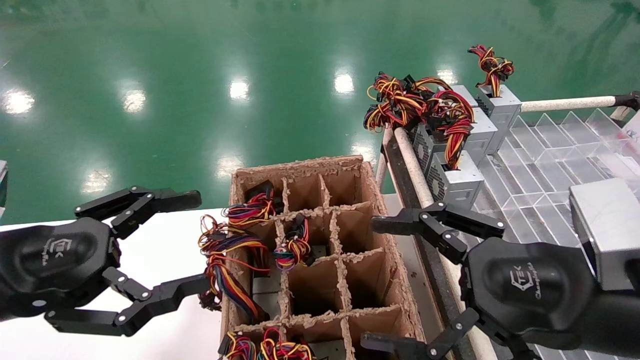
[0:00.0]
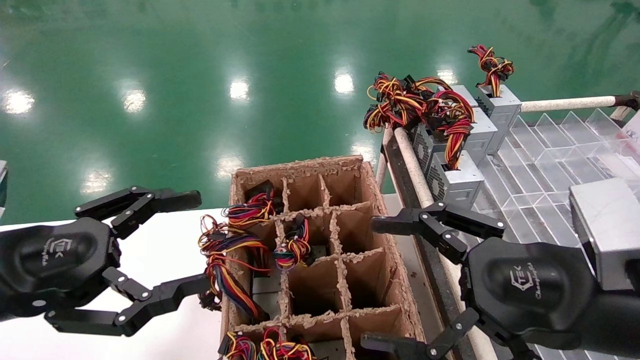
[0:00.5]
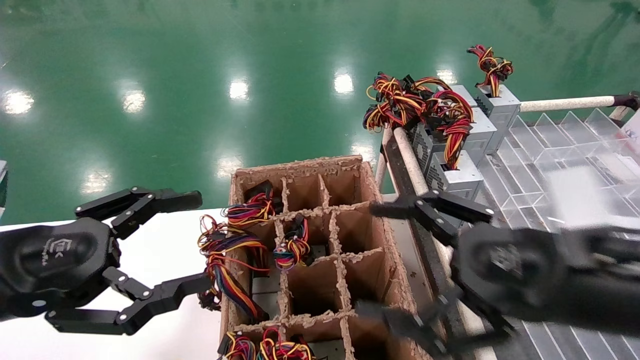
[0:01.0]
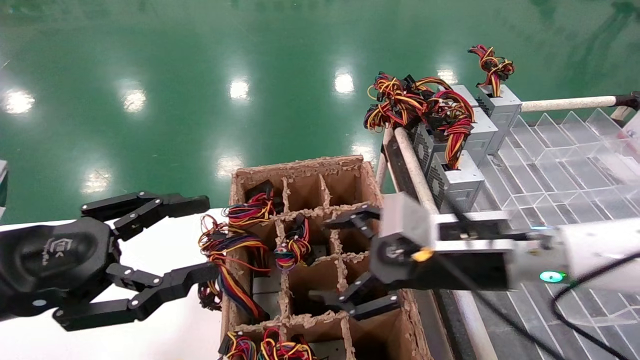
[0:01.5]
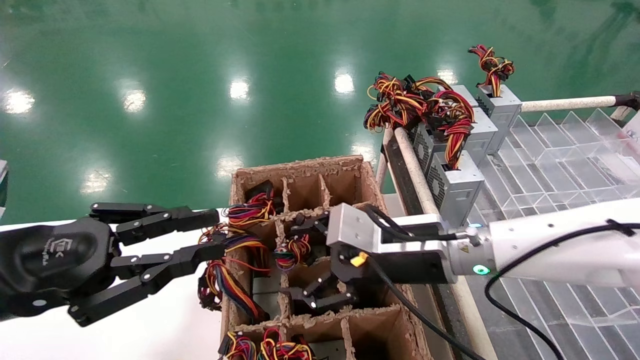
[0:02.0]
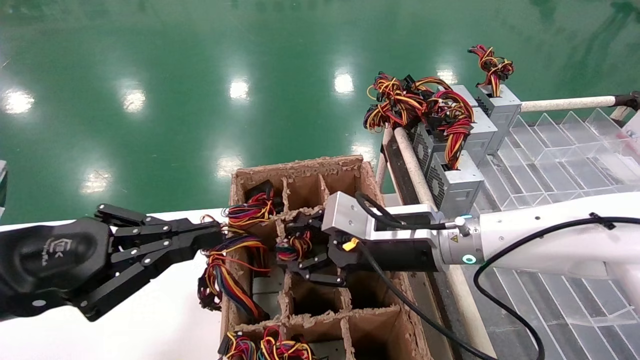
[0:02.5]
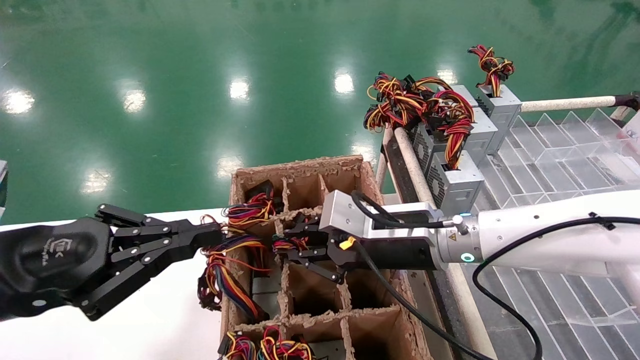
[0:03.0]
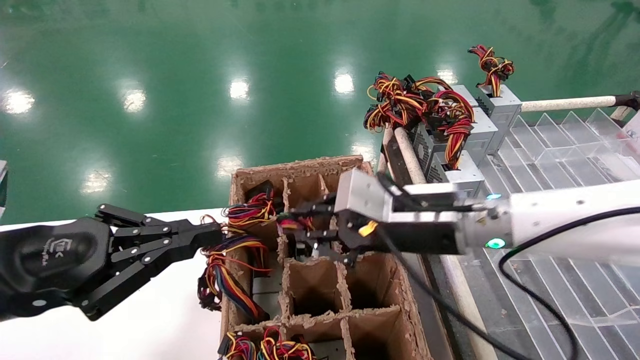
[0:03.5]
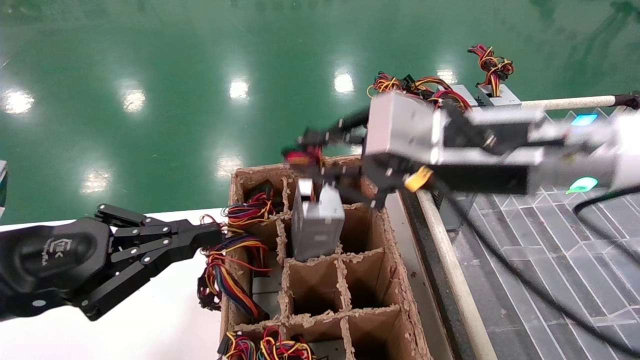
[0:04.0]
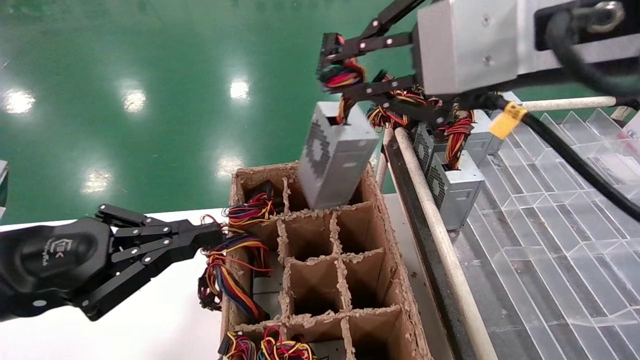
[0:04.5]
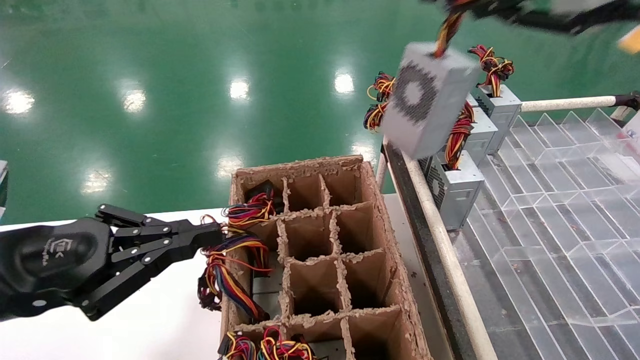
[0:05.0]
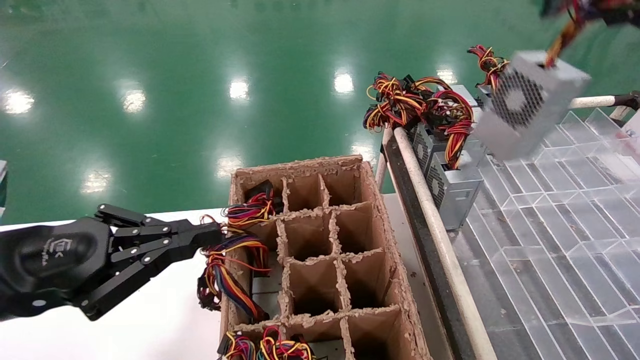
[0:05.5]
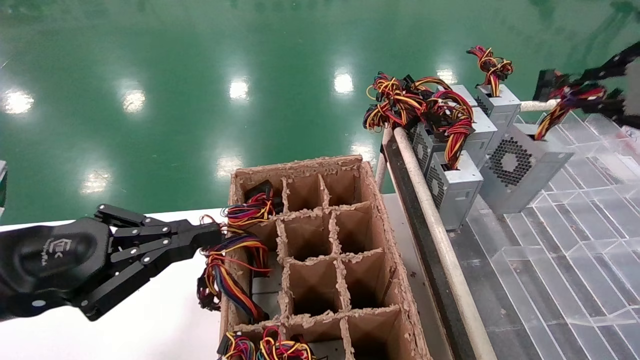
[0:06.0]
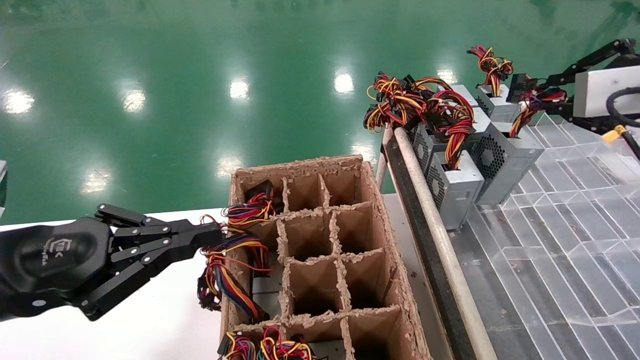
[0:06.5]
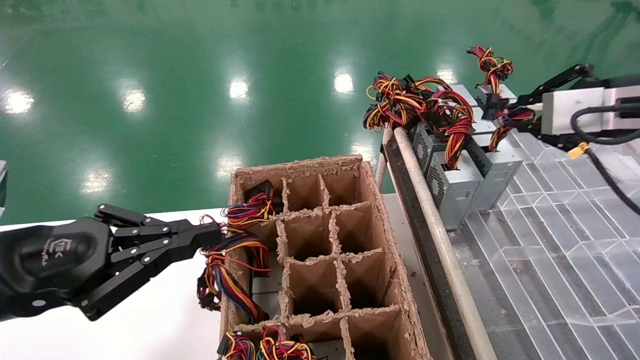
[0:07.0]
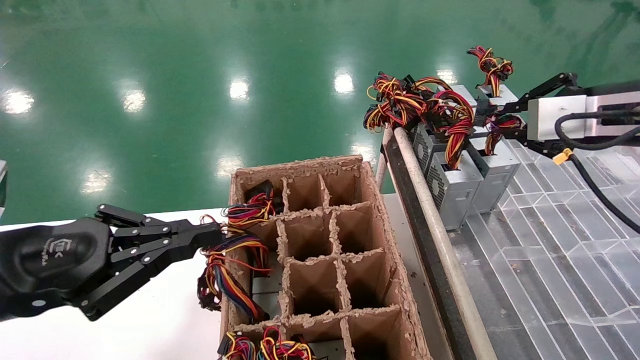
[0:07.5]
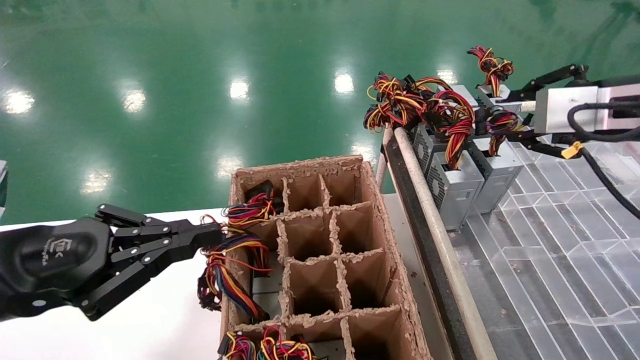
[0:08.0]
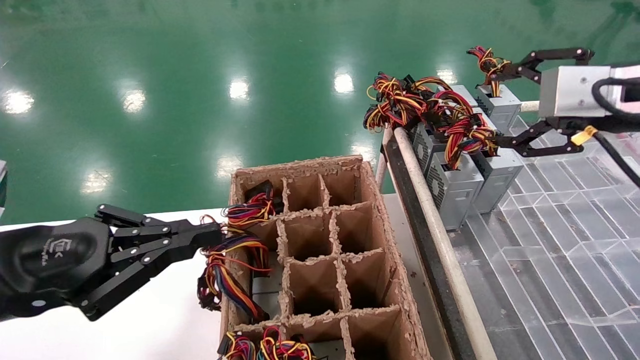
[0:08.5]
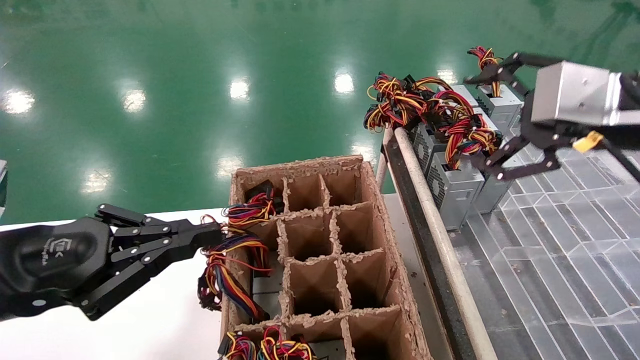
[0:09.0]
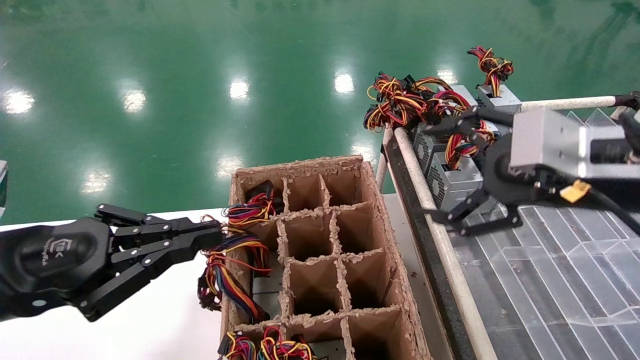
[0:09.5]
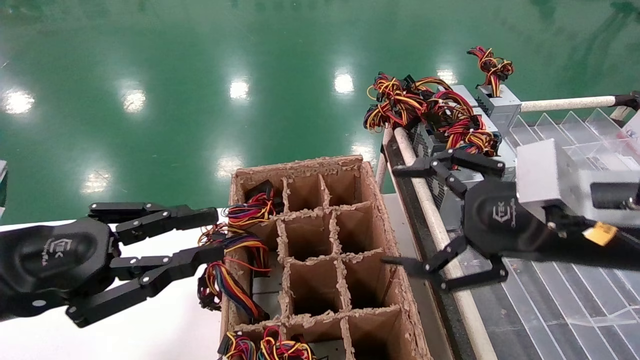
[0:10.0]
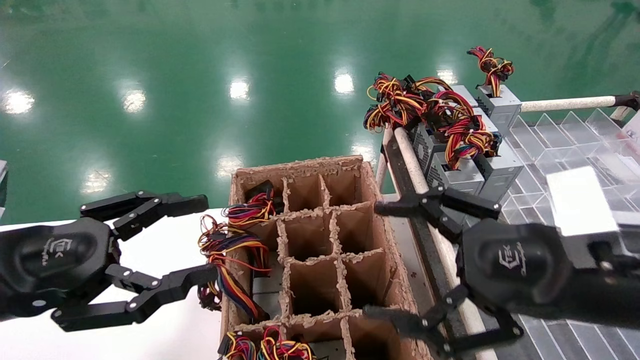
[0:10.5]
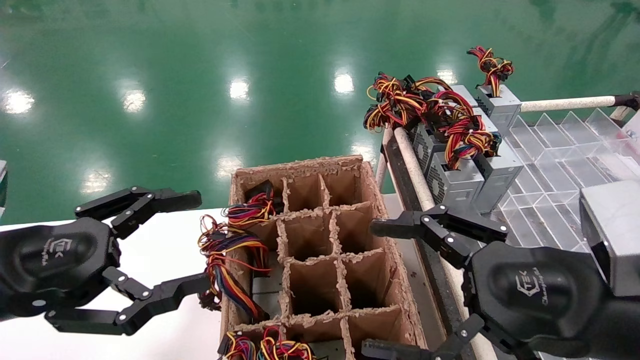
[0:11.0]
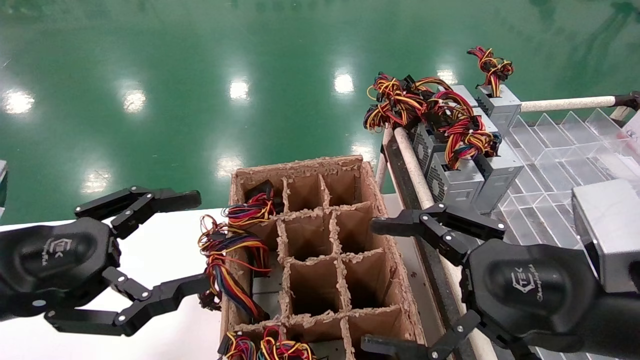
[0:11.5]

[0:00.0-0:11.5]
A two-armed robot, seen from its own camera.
Step, 0:01.5 to 0:03.0: Grab the main unit power supply from the containment box.
Step, 0:03.5 to 0:08.0: Place the main unit power supply in the designated area.
0:00.0 to 0:02.0: The left gripper closes up; the right gripper is displaced forward and to the left by roughly 20 cm.
0:02.0 to 0:04.0: The left gripper closes up. The right gripper heads upward and backward, covering some 15 cm, and closes up.
0:04.0 to 0:06.0: The right gripper is displaced to the right by about 20 cm.
0:06.0 to 0:07.5: The right gripper heads forward, covering some 5 cm.
0:07.5 to 0:09.5: The right gripper shifts roughly 10 cm to the left and downward, and opens its fingers.
0:09.5 to 0:11.5: The right gripper shifts roughly 10 cm downward and backward; the left gripper opens.

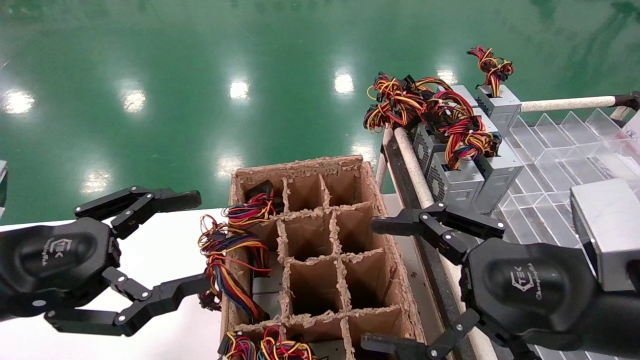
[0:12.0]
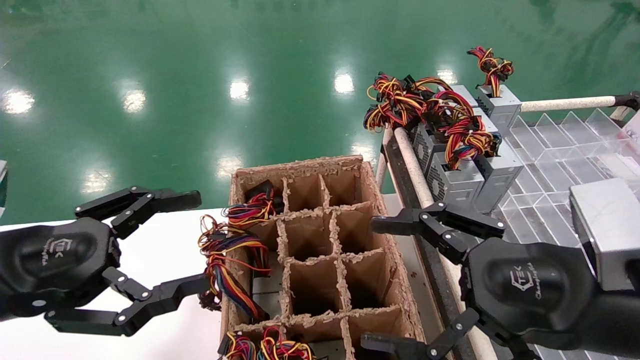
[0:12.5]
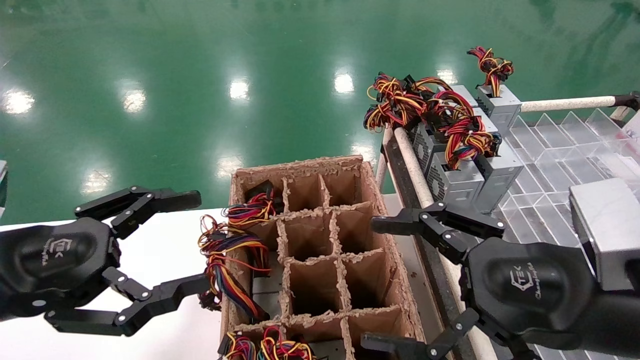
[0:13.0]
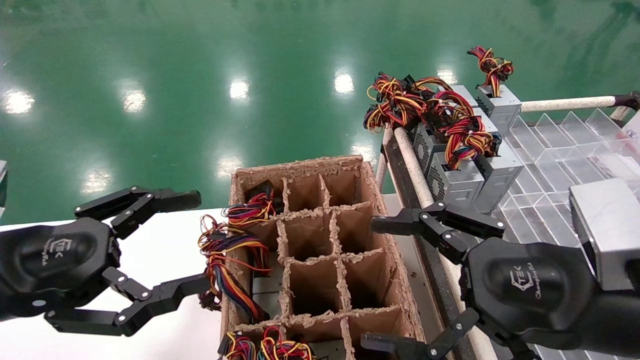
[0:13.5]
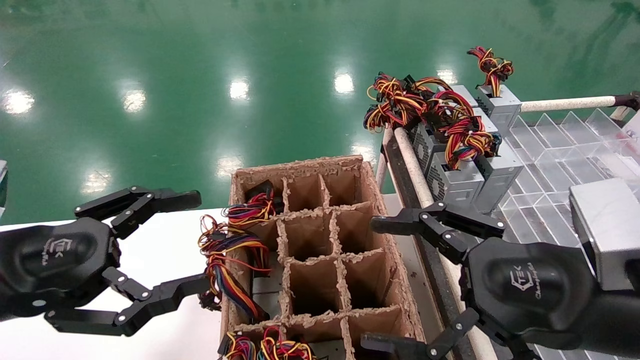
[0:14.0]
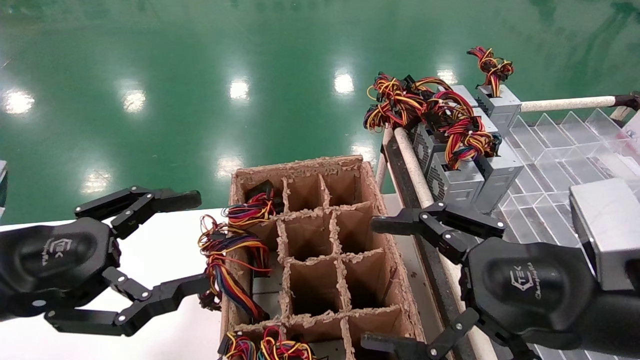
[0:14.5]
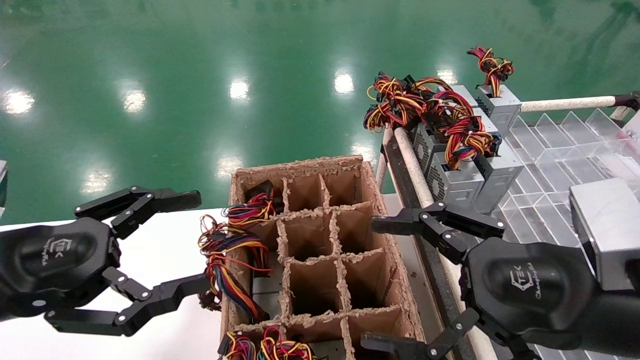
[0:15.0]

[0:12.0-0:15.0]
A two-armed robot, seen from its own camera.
0:12.0 to 0:15.0: Both grippers stay about where they are.

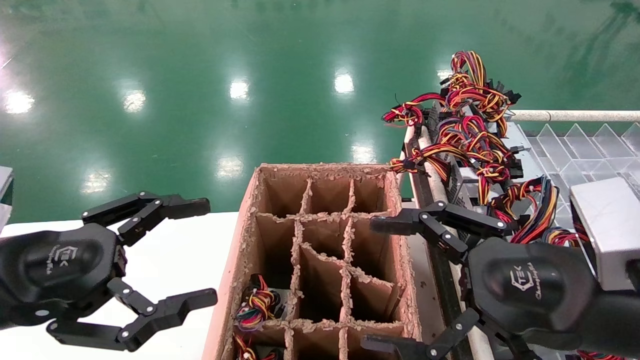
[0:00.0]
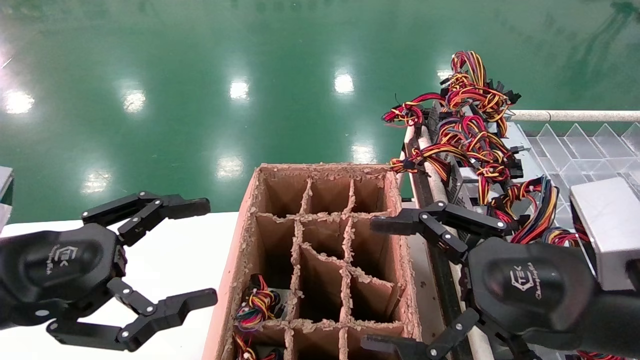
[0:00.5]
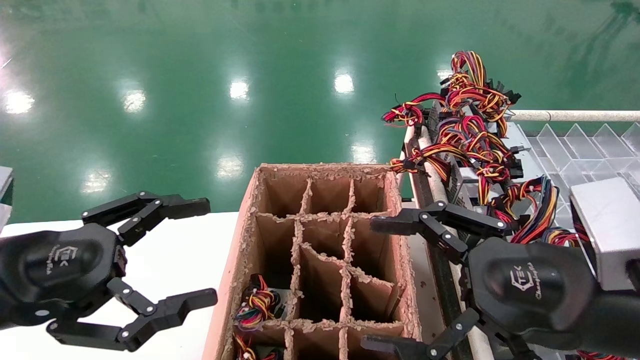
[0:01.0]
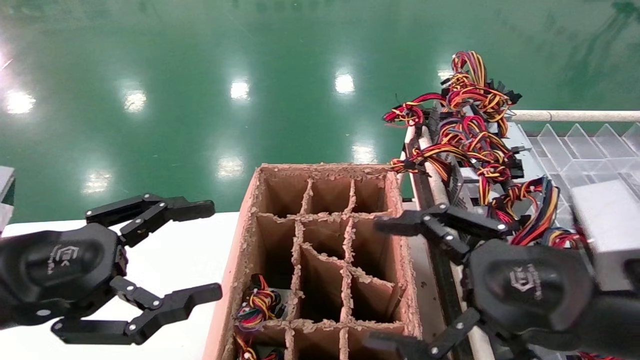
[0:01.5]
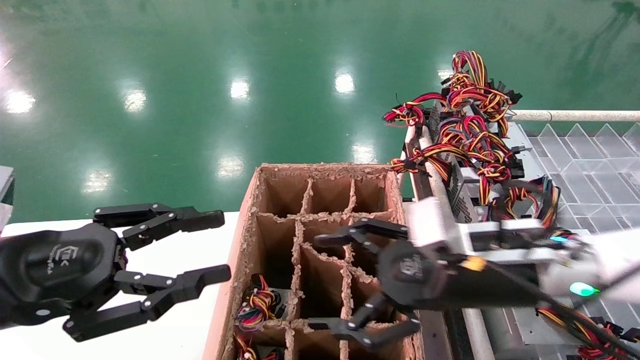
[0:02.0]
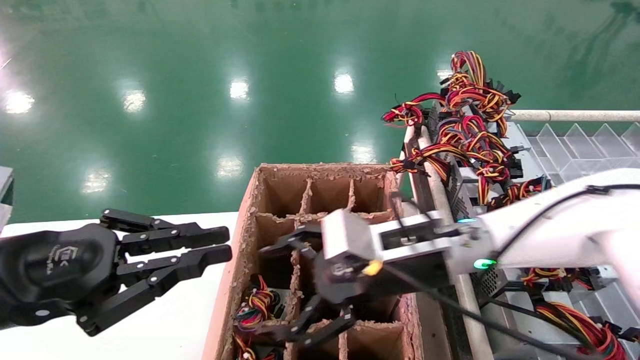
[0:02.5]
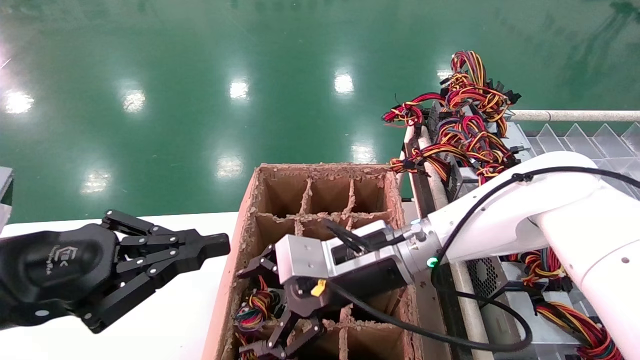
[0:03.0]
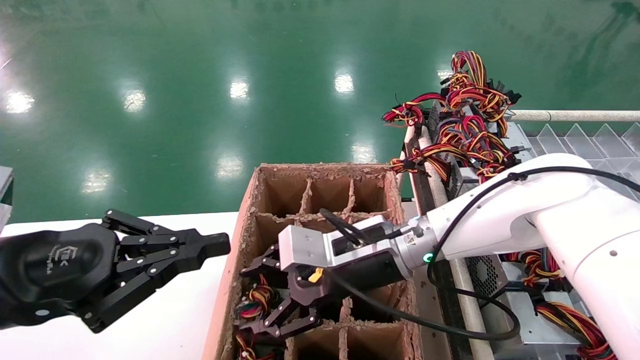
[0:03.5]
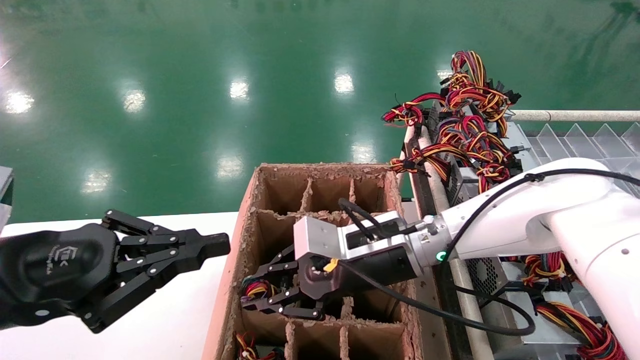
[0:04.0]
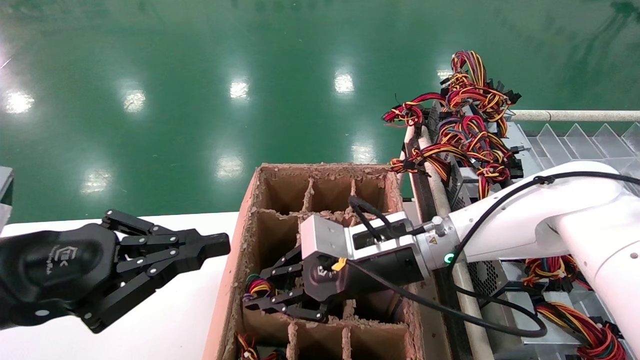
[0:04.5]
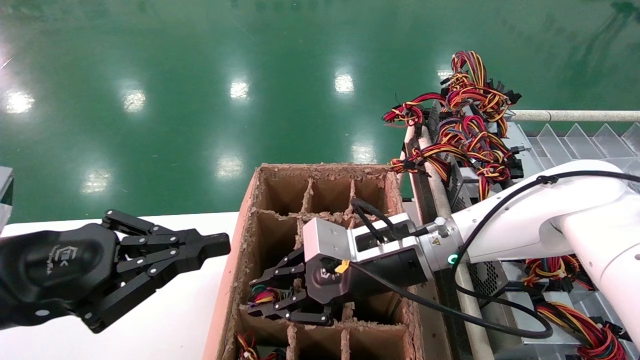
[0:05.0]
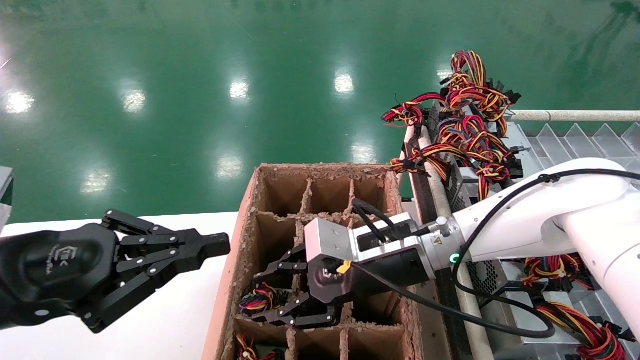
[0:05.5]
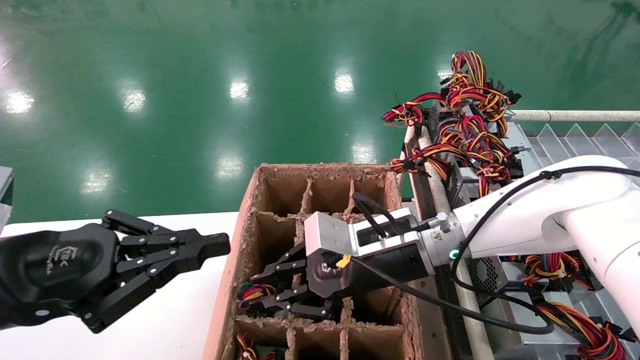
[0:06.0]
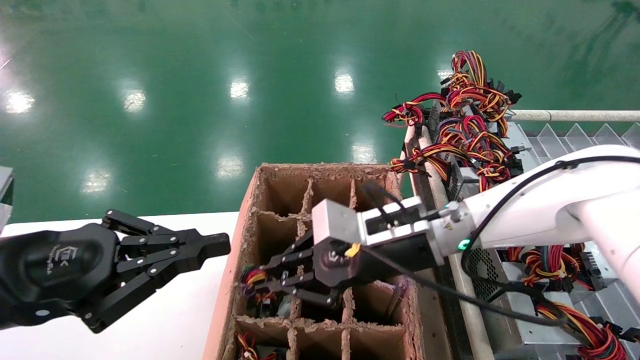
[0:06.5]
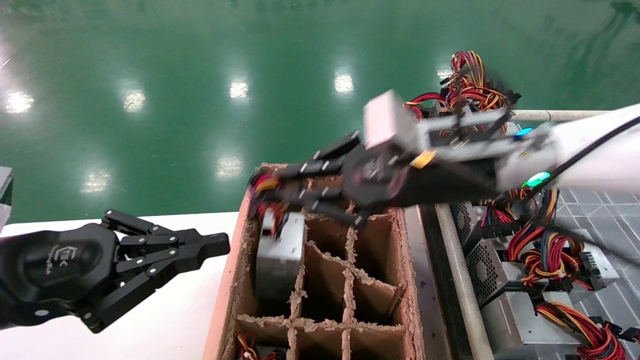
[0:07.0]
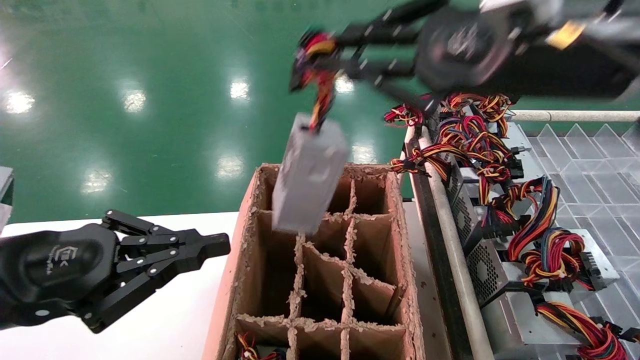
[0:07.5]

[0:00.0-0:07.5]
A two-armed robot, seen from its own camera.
Step, 0:02.0 to 0:06.5: Grab the main unit power supply from the containment box.
0:00.0 to 0:02.0: The right gripper is displaced forward and to the left by approximately 10 cm, while the left gripper closes.
0:02.0 to 0:04.0: The left gripper closes. Meanwhile the right gripper is displaced to the left and forward by some 10 cm, and closes its fingers.
0:04.0 to 0:05.5: The two grippers keep their place.
0:05.5 to 0:07.5: The right gripper heads upward and to the right, covering some 25 cm.
